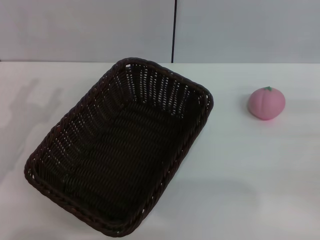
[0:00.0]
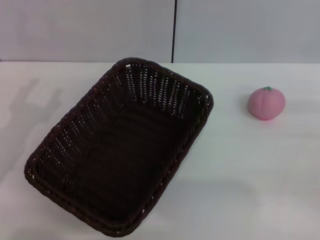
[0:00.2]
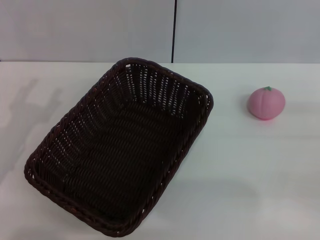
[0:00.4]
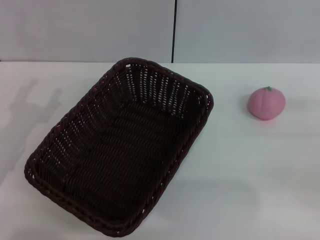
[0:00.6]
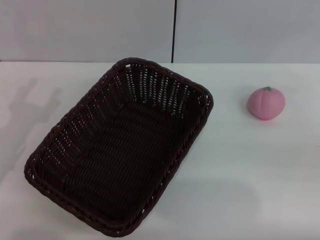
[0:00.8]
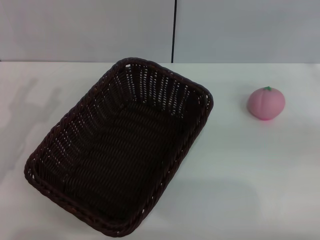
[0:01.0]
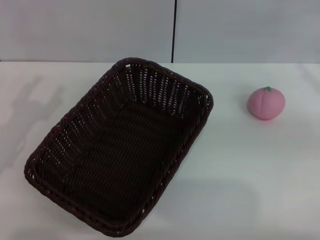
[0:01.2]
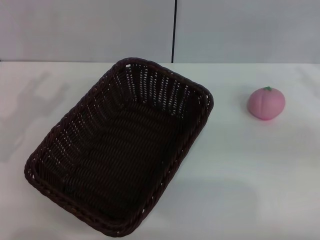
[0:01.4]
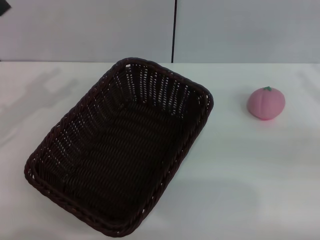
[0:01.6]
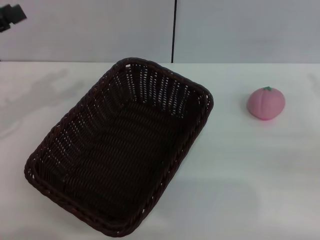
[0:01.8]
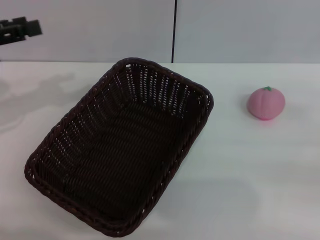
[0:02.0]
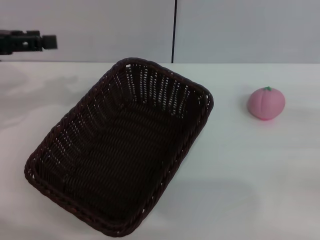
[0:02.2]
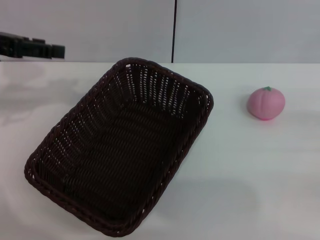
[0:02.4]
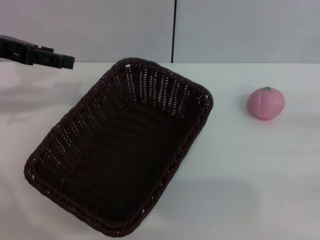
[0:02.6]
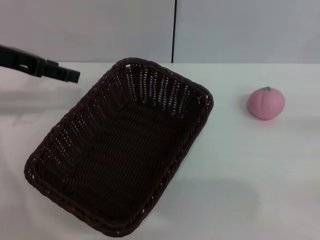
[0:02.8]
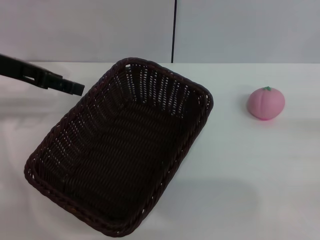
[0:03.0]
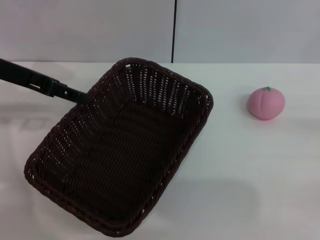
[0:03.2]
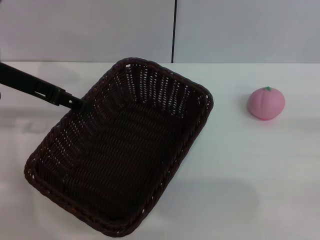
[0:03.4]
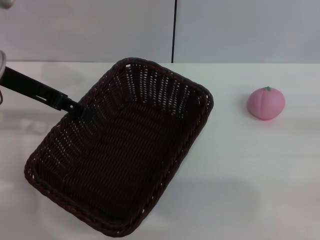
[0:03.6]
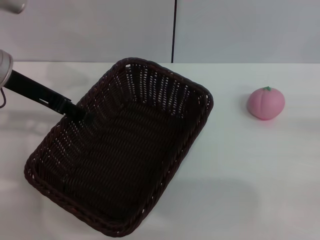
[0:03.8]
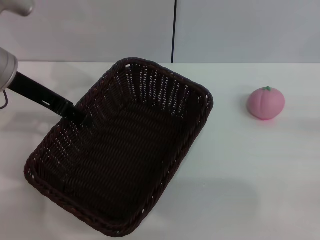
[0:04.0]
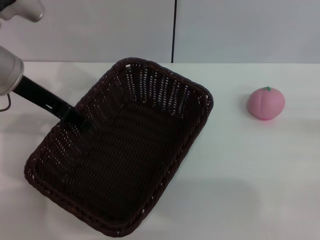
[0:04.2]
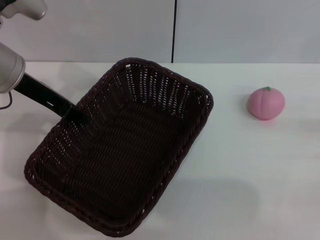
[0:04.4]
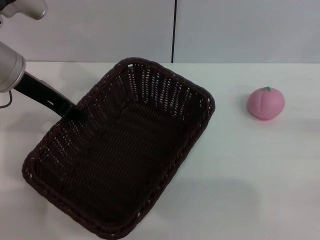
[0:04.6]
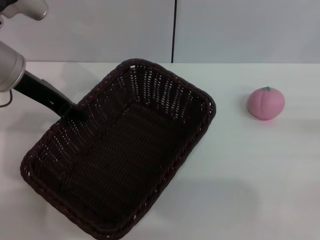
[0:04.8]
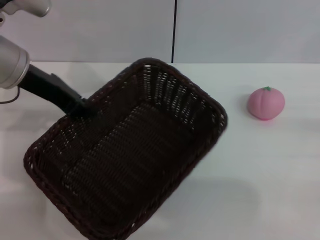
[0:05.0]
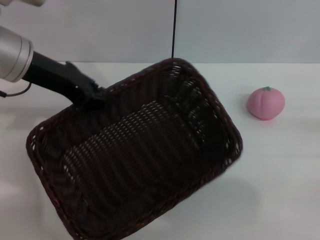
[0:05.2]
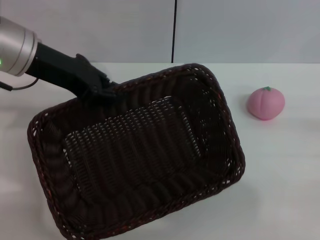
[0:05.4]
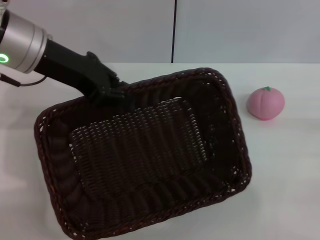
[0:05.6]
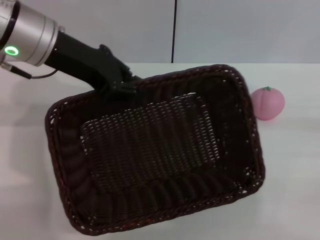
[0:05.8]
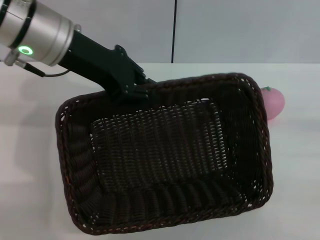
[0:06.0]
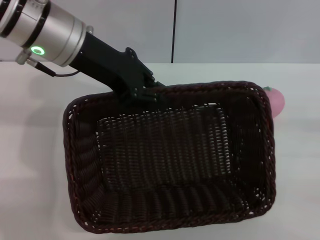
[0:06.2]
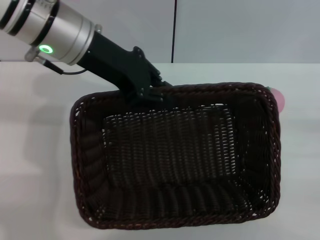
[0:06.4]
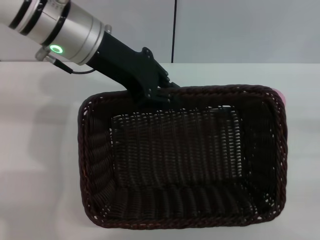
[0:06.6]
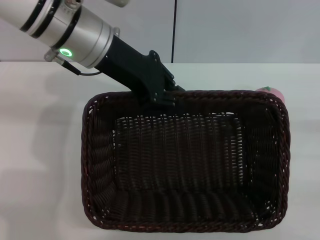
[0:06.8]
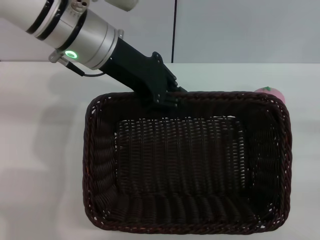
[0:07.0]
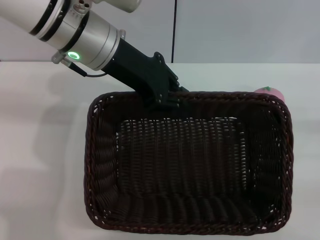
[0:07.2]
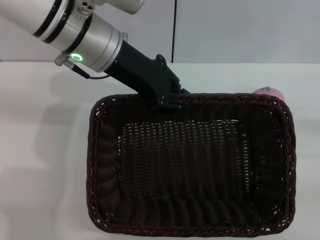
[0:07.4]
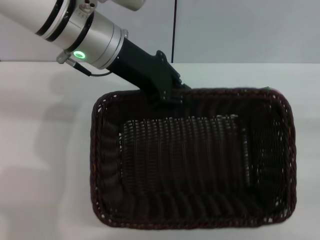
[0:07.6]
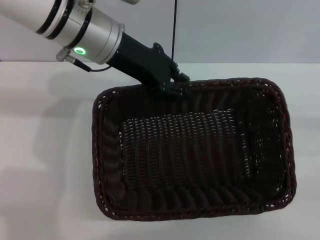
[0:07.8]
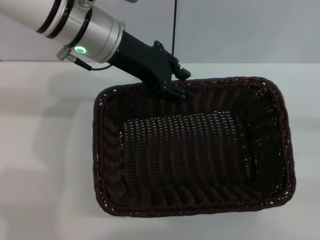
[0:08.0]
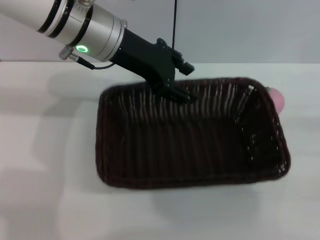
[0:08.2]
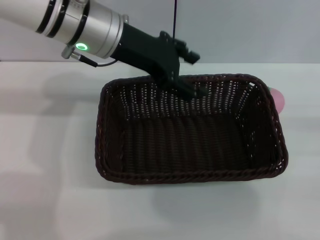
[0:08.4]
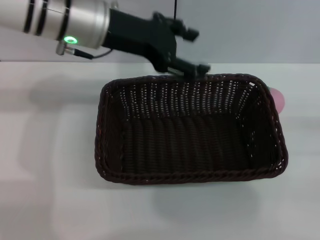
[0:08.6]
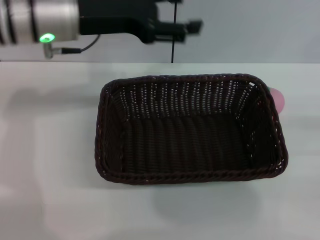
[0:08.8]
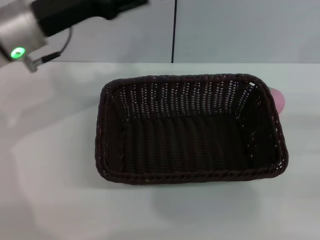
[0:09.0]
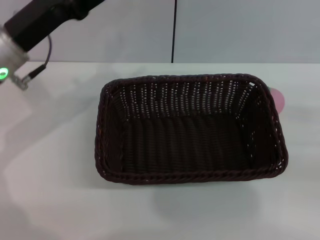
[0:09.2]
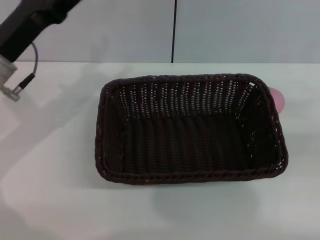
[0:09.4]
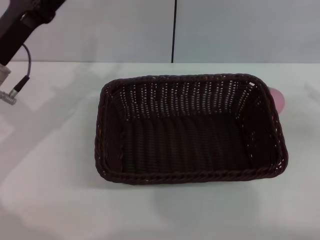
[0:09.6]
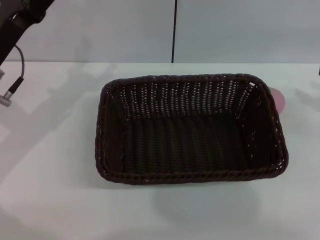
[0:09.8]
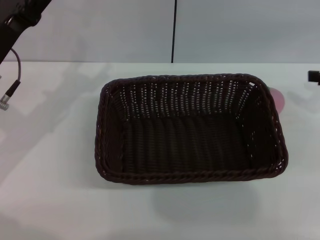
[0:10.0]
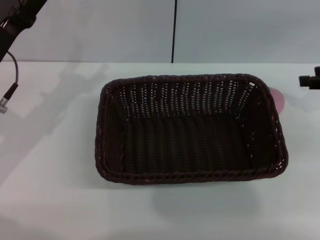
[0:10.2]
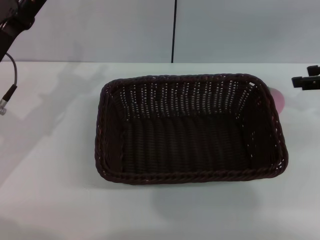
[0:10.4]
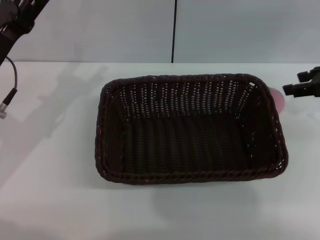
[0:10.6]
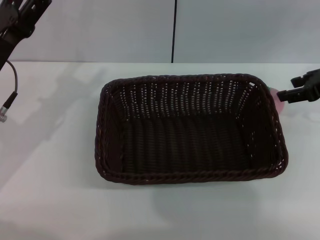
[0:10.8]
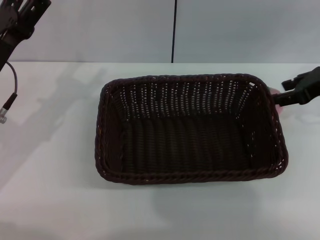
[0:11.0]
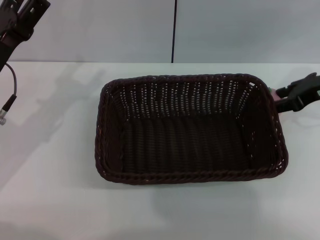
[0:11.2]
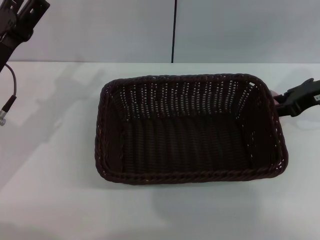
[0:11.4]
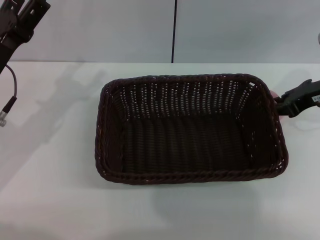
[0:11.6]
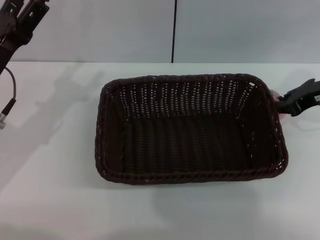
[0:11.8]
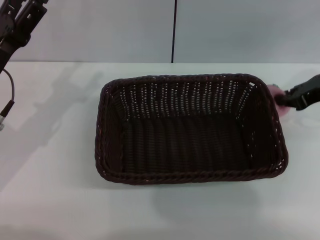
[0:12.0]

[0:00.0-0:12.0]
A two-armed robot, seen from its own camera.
Step, 0:00.0 to 0:05.4: Pick up the dark basket with the left gripper.
Step, 0:05.6 to 0:08.6: Place the dark basket in the center of view with the right gripper.
0:01.6 to 0:03.0: The left gripper travels to the right, forward and upward by about 10 cm.
0:03.0 to 0:04.4: The left gripper heads to the right, covering some 5 cm, and closes its fingers.
0:04.4 to 0:06.0: The left gripper goes some 5 cm to the right, and closes.
0:06.0 to 0:07.6: The left gripper is displaced to the right by some 5 cm.
0:07.6 to 0:09.0: The left gripper goes approximately 10 cm to the left, and opens its fingers.
0:09.0 to 0:10.4: The left gripper shifts approximately 5 cm downward. The right gripper heads forward, upward and to the left, covering about 15 cm.
0:10.4 to 0:12.0: The right gripper closes.

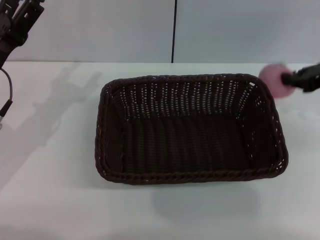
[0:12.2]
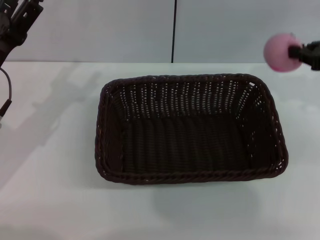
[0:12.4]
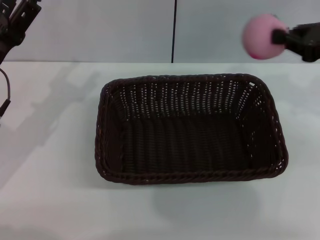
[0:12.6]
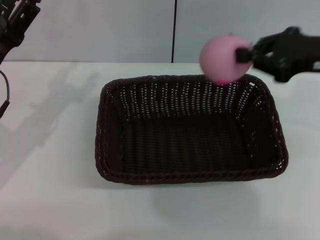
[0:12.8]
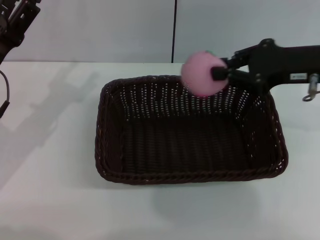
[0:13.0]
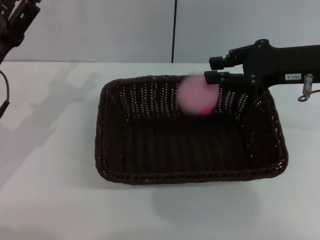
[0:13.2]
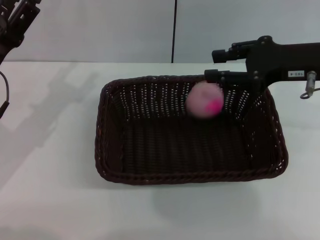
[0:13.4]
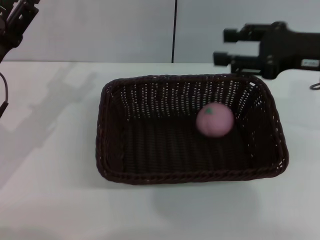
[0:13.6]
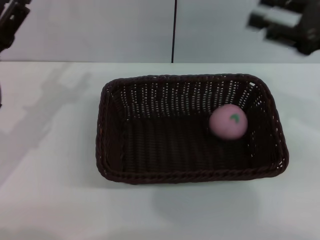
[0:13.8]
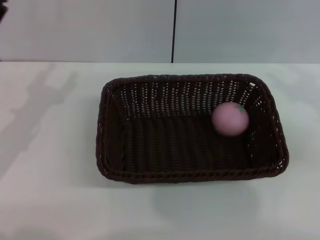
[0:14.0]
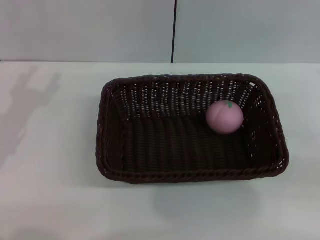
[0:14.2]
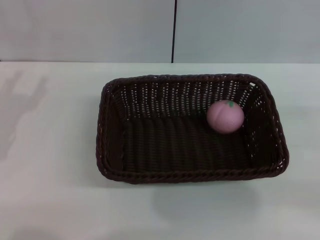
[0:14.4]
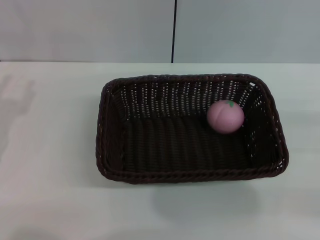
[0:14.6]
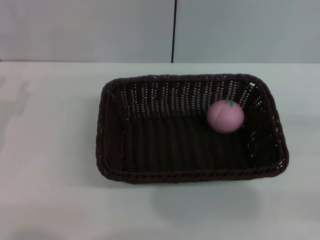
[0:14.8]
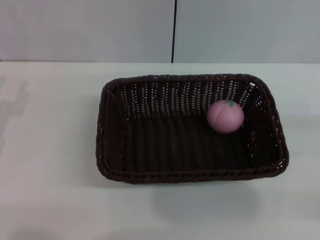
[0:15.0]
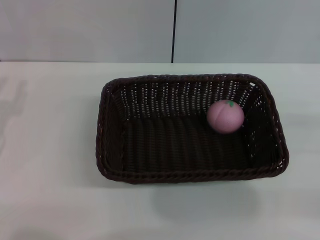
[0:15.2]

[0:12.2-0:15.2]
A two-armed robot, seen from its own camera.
0:12.2 to 0:13.8: The right gripper moves about 10 cm to the left and comes back, and opens its fingers.
0:13.8 to 0:15.2: The right gripper moves to the right, downward and backward, roughly 20 cm. The left gripper is displaced backward by roughly 5 cm.
